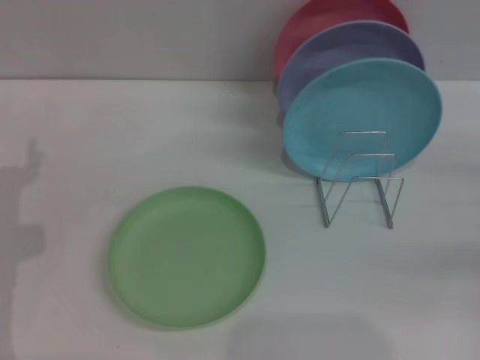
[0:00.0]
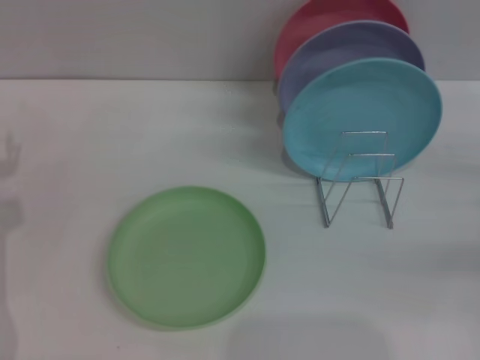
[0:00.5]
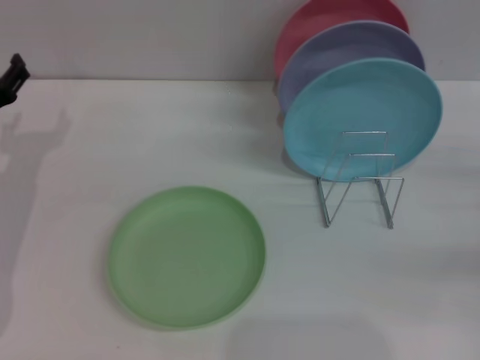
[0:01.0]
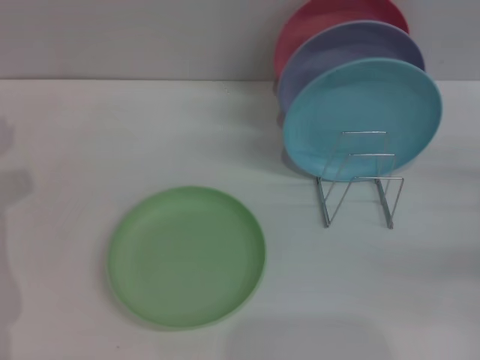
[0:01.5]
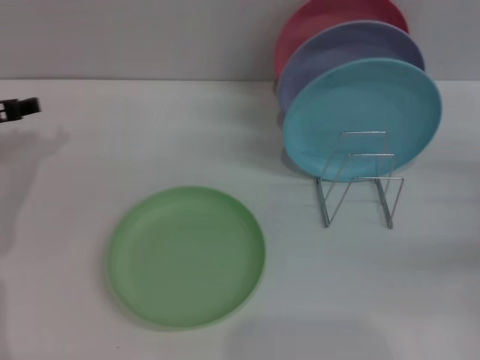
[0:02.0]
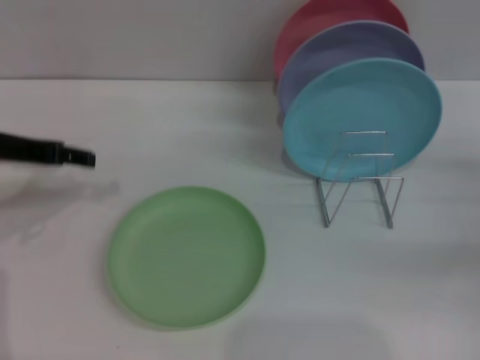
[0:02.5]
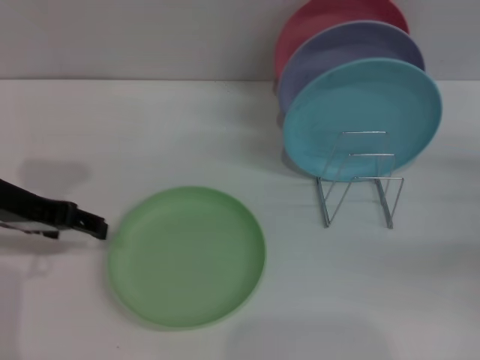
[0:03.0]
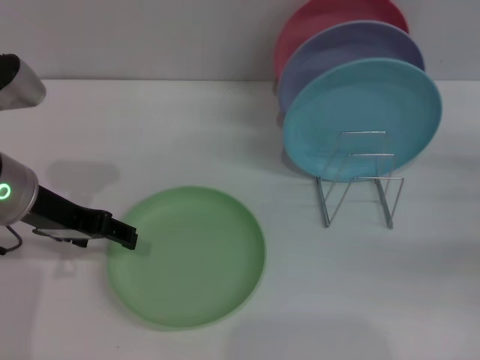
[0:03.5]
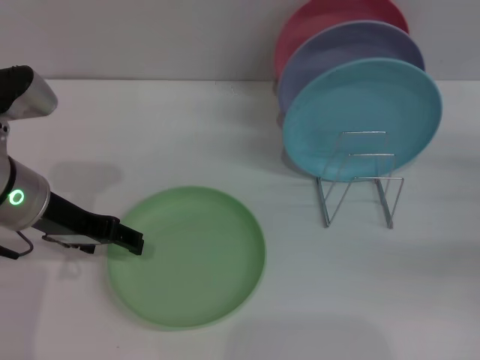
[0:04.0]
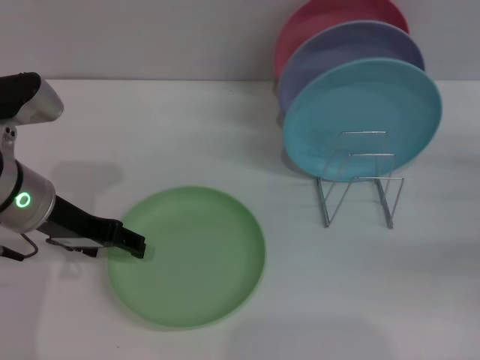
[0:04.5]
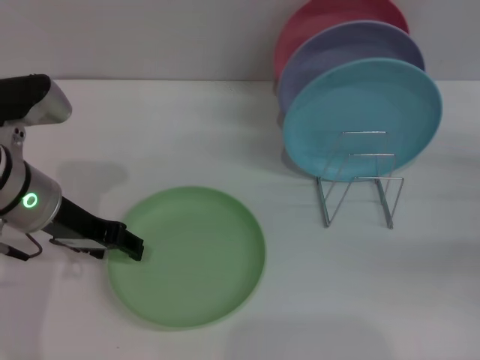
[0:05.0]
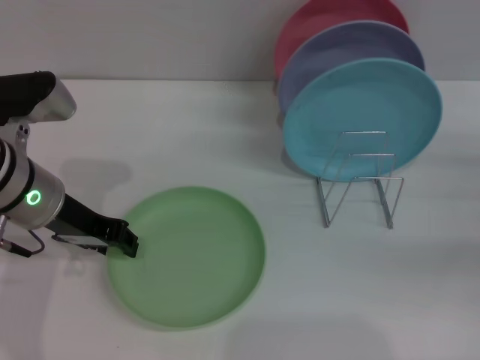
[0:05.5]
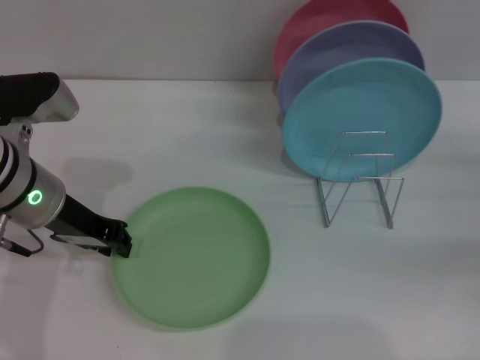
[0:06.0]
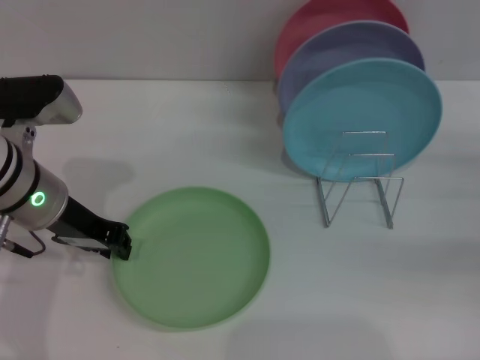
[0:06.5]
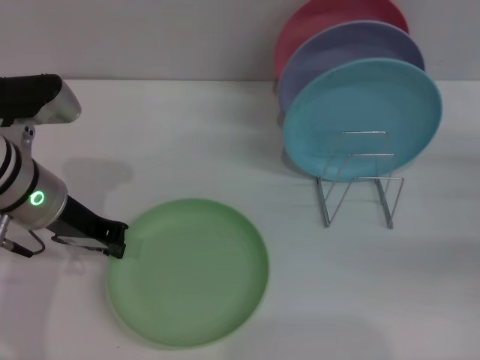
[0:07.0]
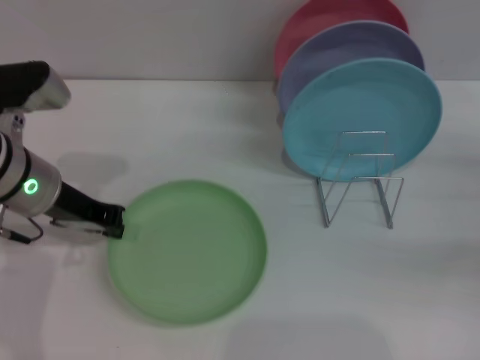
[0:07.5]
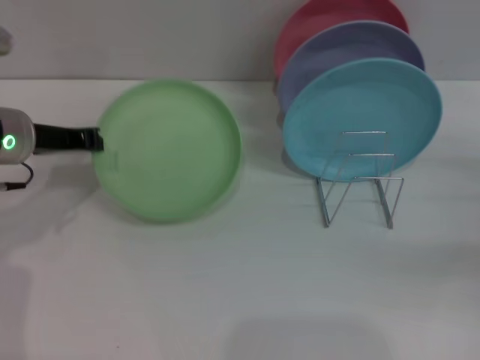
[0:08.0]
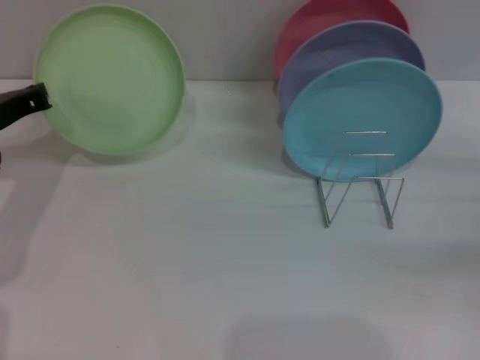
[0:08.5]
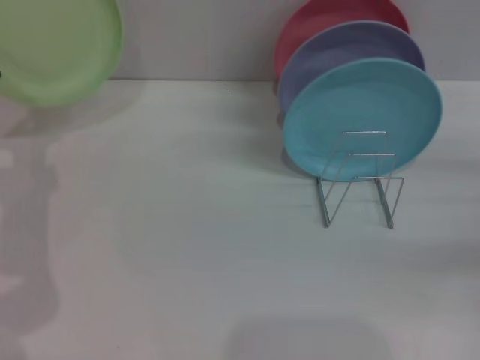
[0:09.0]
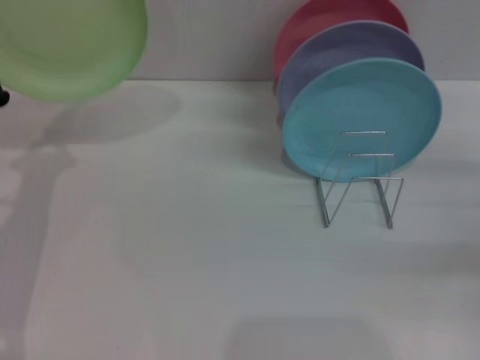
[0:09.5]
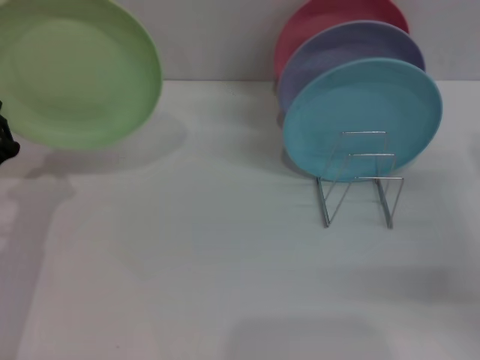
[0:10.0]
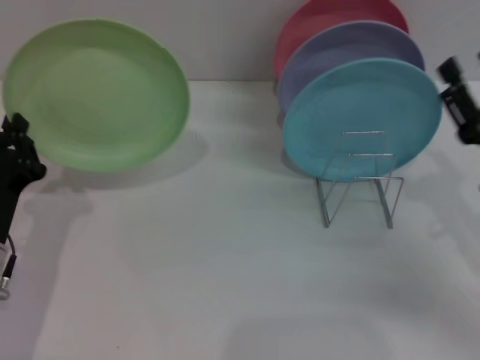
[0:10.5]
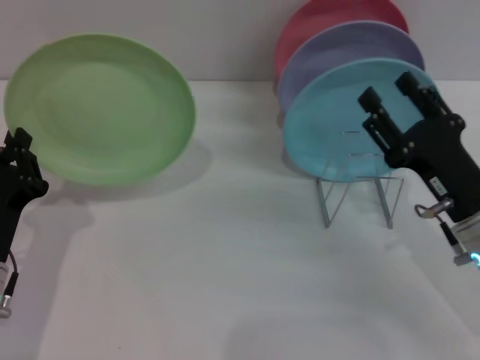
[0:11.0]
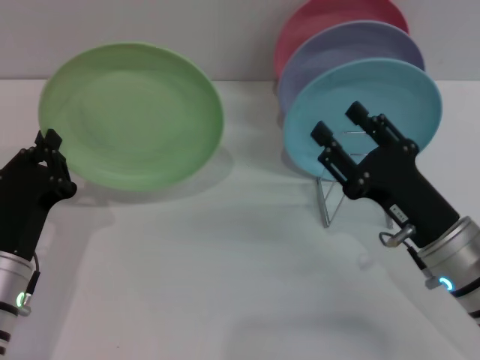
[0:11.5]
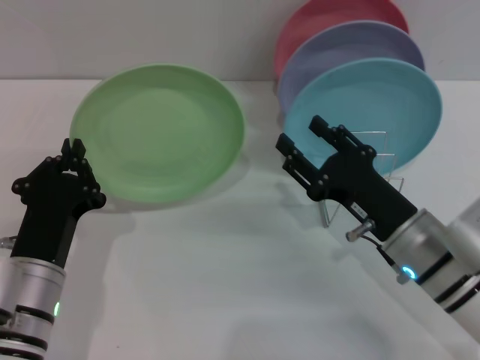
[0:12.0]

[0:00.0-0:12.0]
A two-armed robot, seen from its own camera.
Task of the whole recording: Grip the plate with one hand, pass it to the other, then set it on the shelf.
Step, 0.0 to 10.0 s: Pick up the plate with the left gripper.
0.0 to 2.0 s: The left gripper shifts roughly 10 cm forward and upward.
2.0 to 4.0 s: The left gripper goes some 10 cm to the right and backward.
4.0 to 6.0 s: The left gripper closes.
6.0 to 8.0 s: The left gripper ends up some 5 cm from where it was.
8.0 to 10.0 s: The left gripper shifts about 15 cm backward and downward. Meanwhile the right gripper is displaced to the left by about 5 cm.
10.0 to 12.0 s: The right gripper shifts approximately 15 cm to the left, while the left gripper moves to the right, about 10 cm.

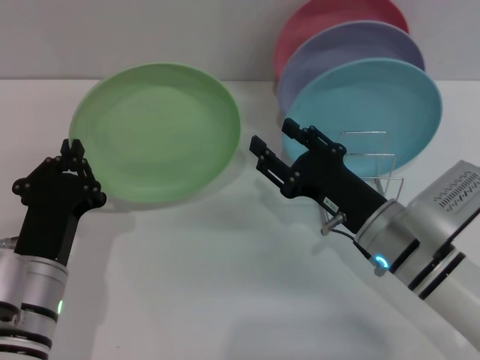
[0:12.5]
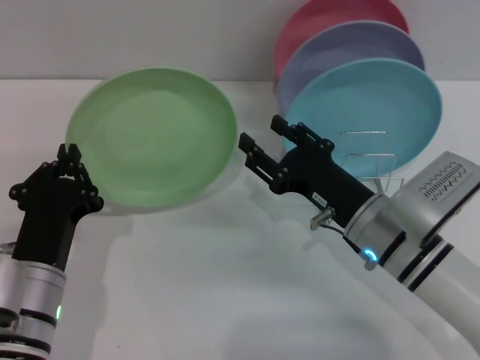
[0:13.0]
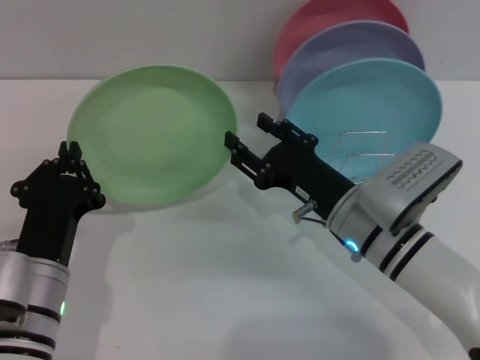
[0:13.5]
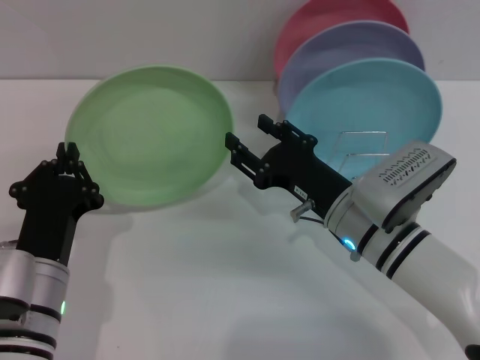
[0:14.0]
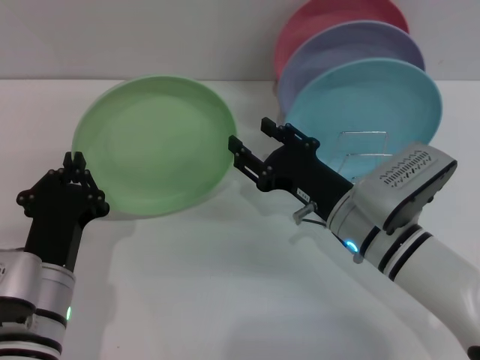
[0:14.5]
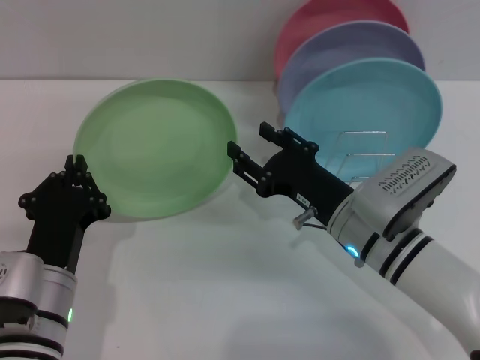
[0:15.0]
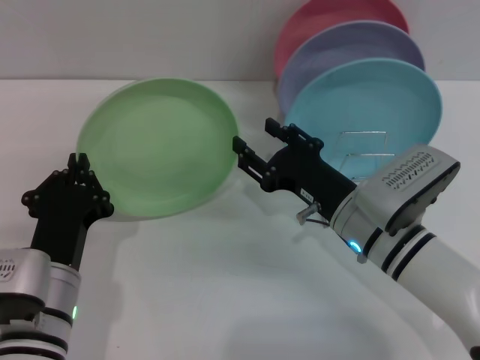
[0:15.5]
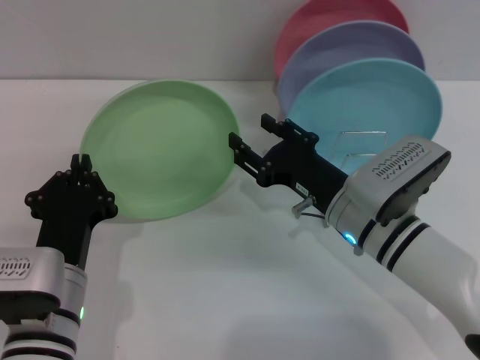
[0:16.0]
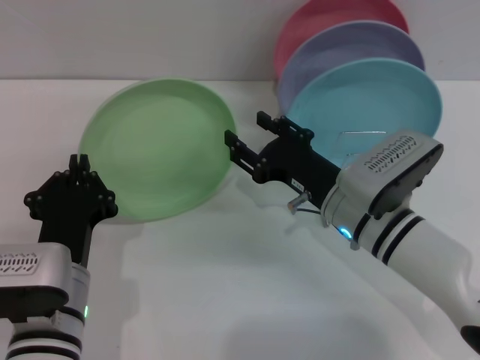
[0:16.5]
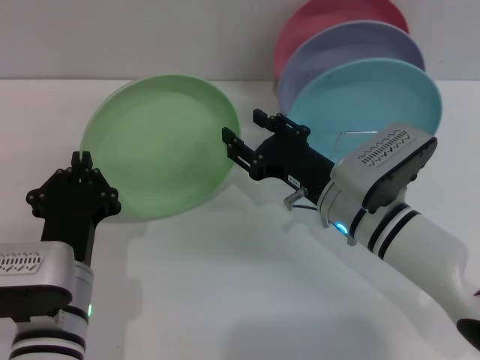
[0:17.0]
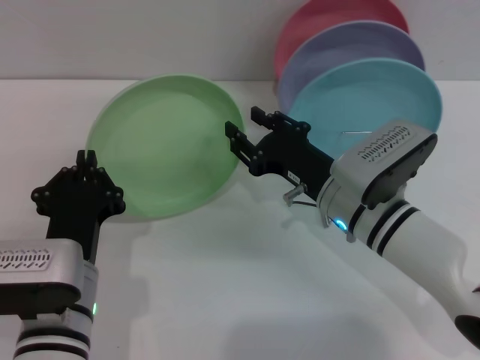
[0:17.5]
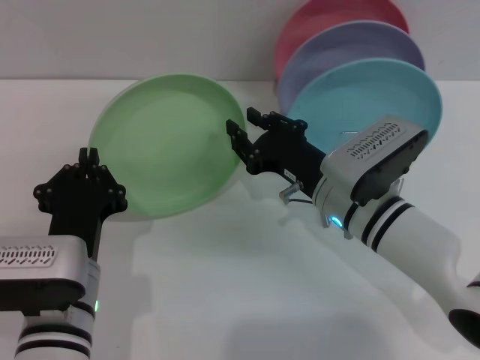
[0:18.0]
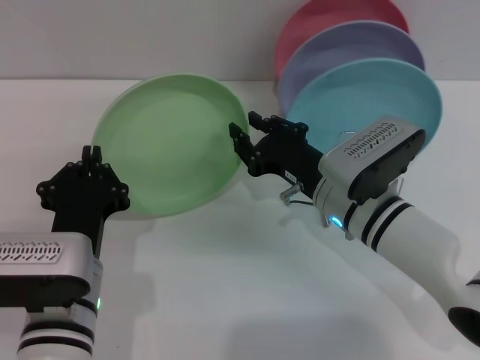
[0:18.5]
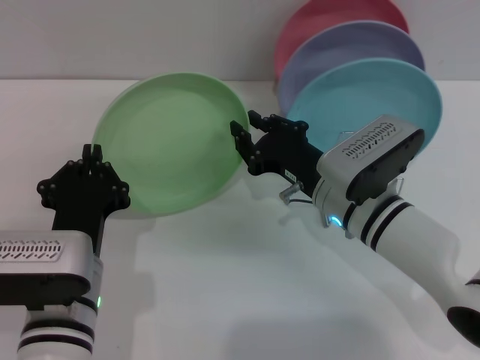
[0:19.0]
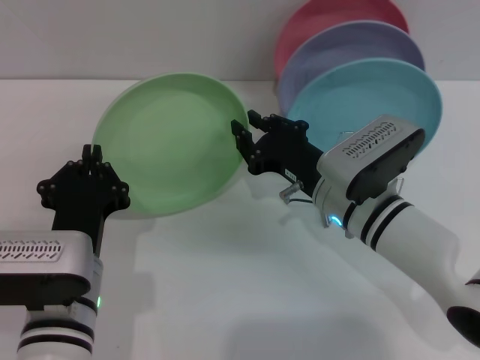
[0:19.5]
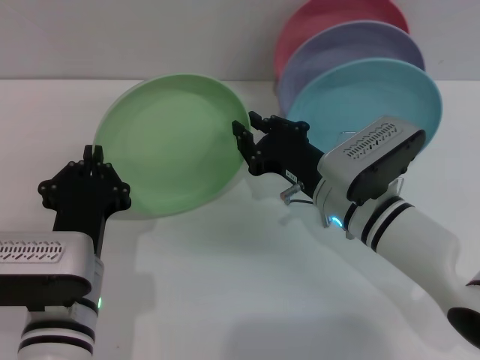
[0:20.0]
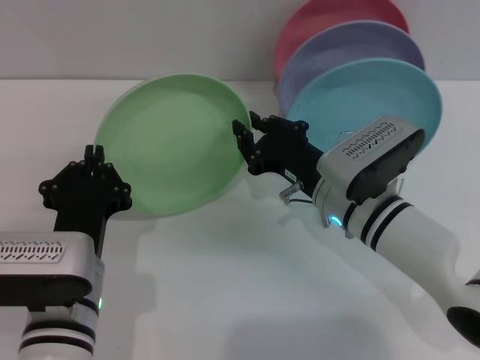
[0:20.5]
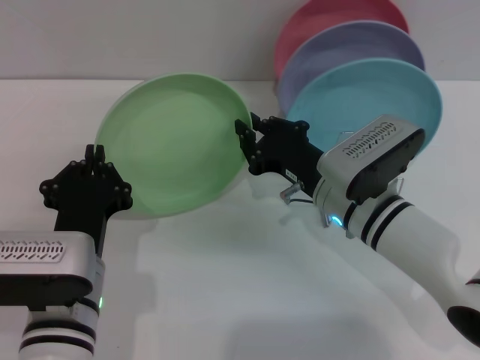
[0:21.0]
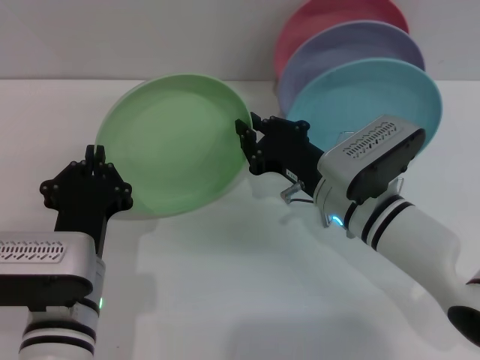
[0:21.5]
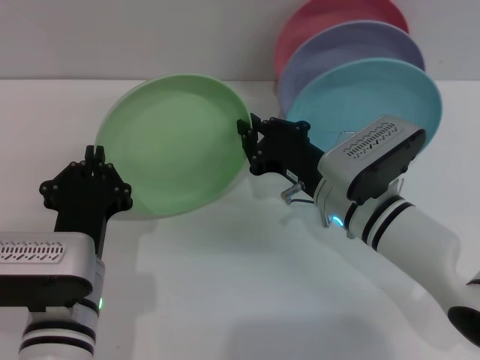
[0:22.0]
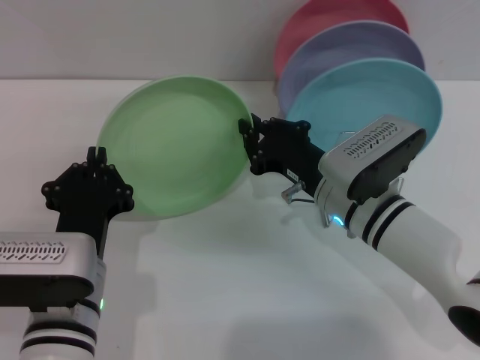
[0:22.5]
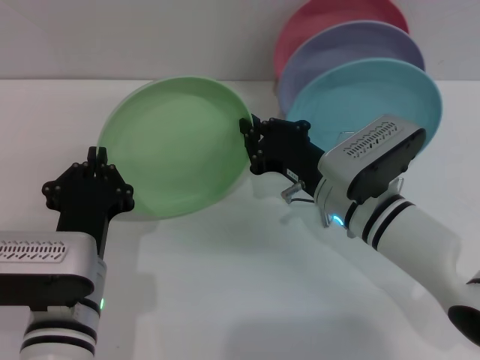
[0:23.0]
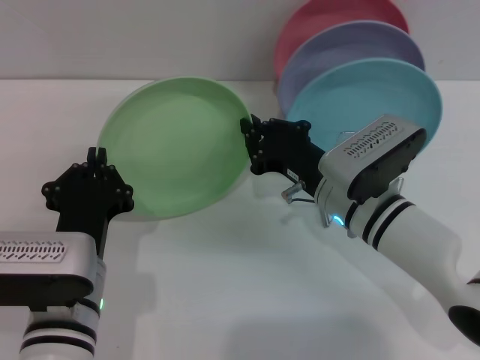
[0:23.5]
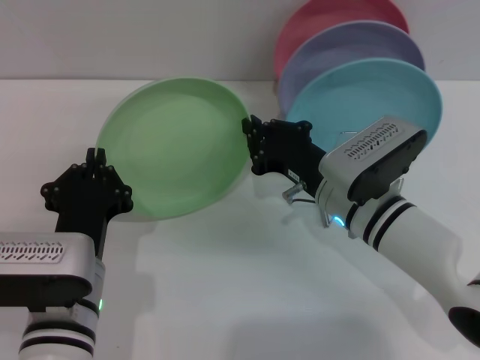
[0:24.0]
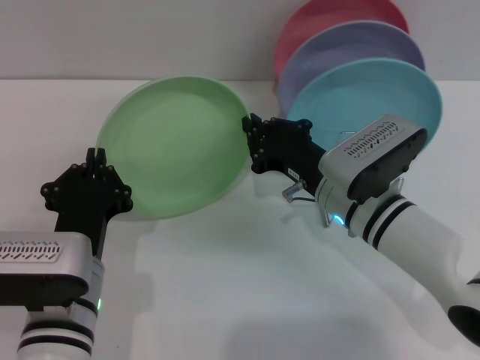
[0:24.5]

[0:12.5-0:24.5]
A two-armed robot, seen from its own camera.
Task of the whole recording: Grip the plate with one hand, pass it to the other, then set it on the shelf.
12.5 to 16.5 s: The grippers make only small movements.
16.5 to 18.5 s: The right gripper closes its fingers.
18.5 to 24.5 s: The two grippers keep their place.

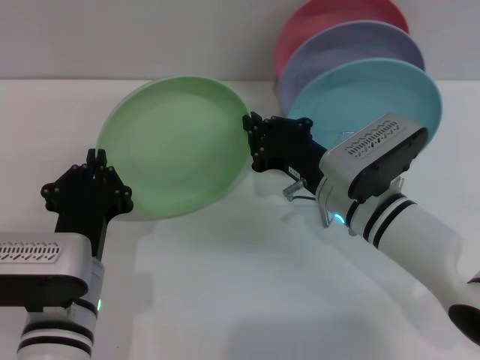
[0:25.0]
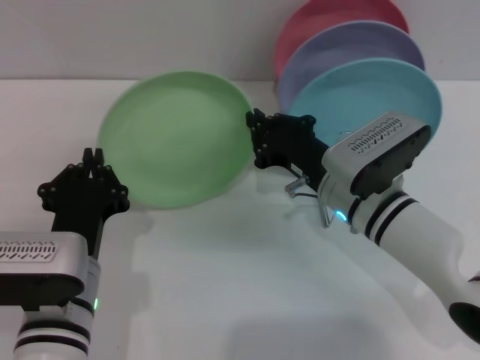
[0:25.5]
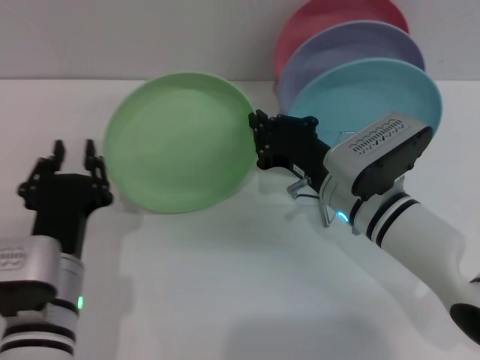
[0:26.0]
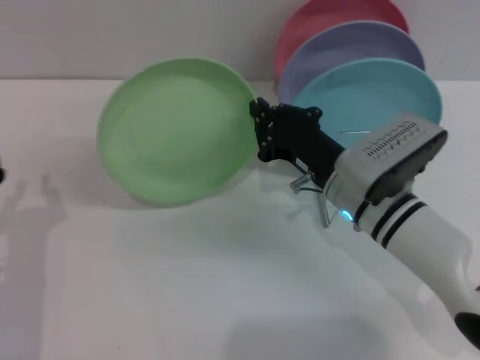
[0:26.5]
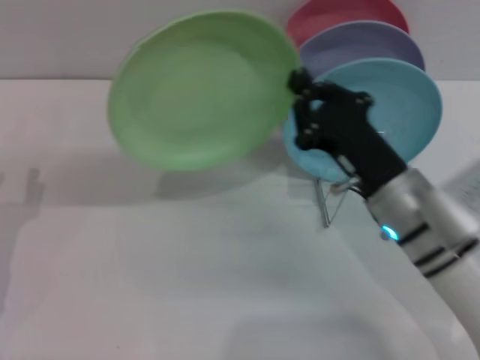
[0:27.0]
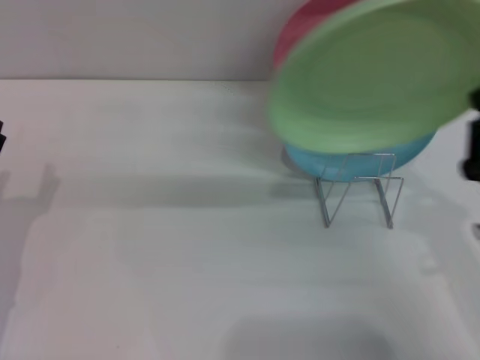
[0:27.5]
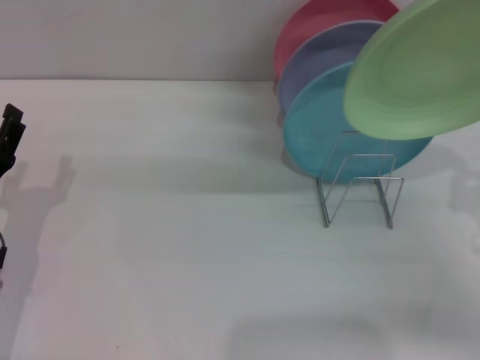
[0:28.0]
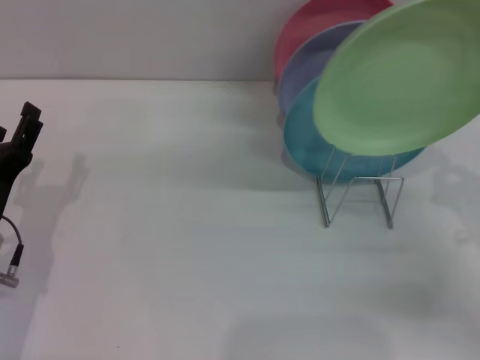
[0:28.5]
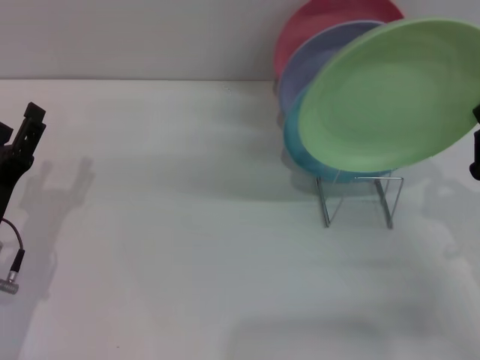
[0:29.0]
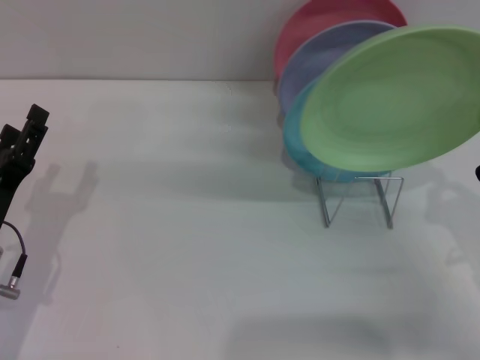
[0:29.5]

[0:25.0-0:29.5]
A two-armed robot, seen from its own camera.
Task of the whole recording: Grip the plate with one hand, pass it to the other, then set it on the shelf.
25.0 to 27.0 s: The left gripper heads to the left, covering roughly 15 cm, and opens. The right gripper changes place by roughly 5 cm.
27.0 to 29.5 s: The right gripper moves to the right and backward, about 15 cm, while the left gripper opens up.
